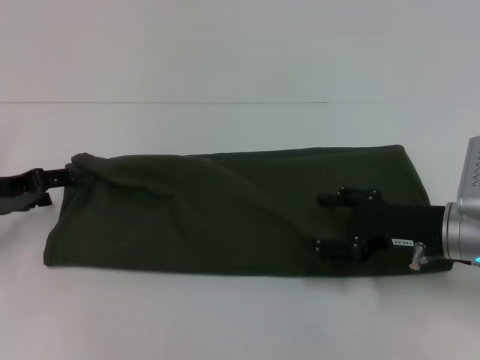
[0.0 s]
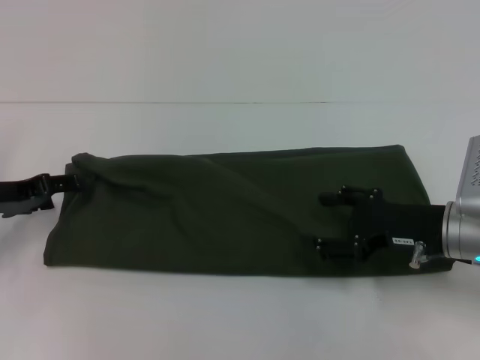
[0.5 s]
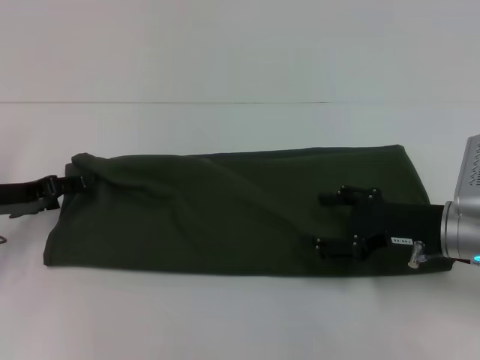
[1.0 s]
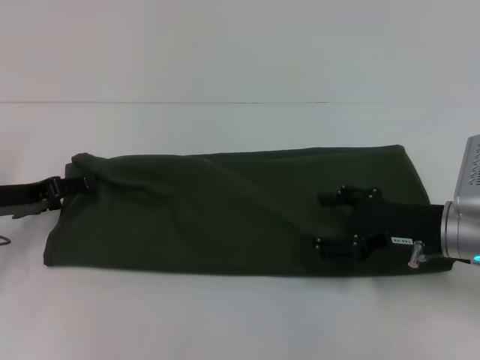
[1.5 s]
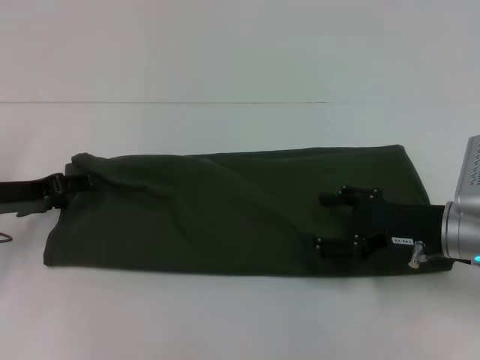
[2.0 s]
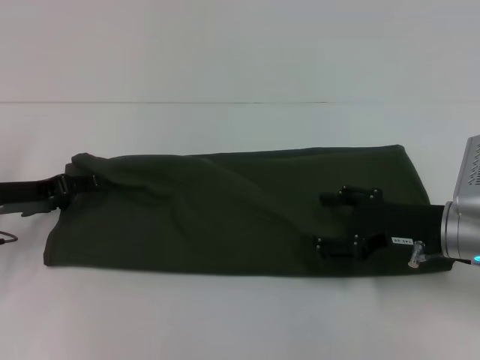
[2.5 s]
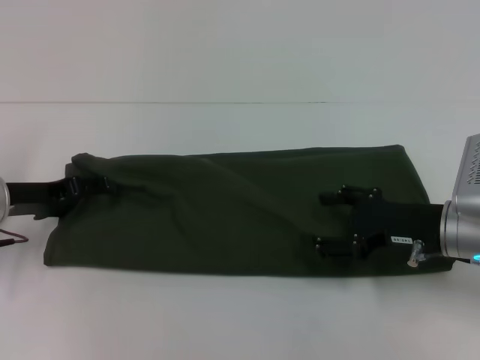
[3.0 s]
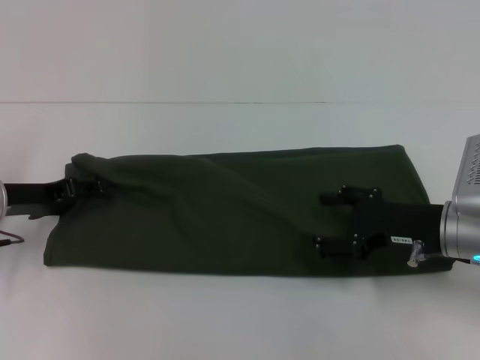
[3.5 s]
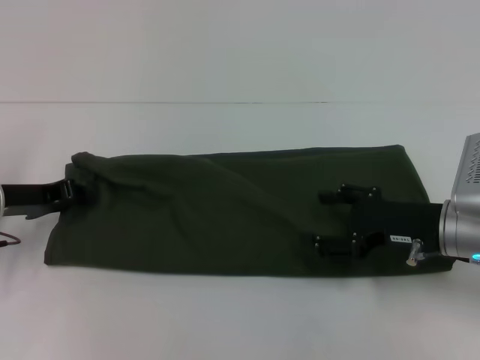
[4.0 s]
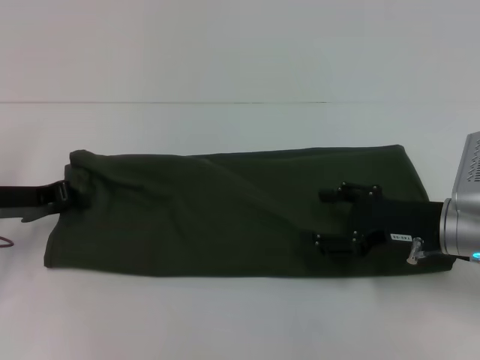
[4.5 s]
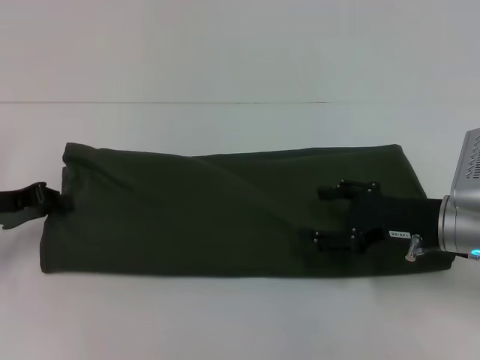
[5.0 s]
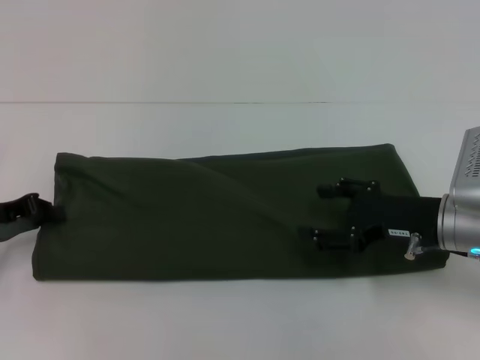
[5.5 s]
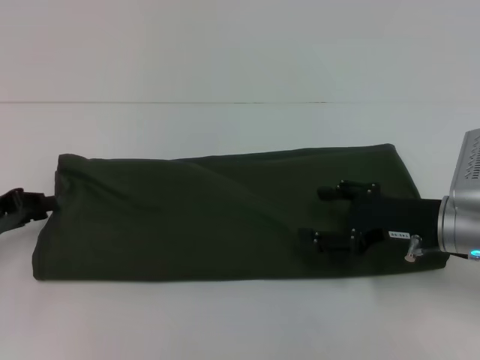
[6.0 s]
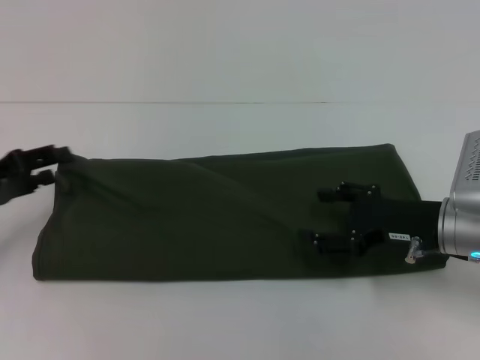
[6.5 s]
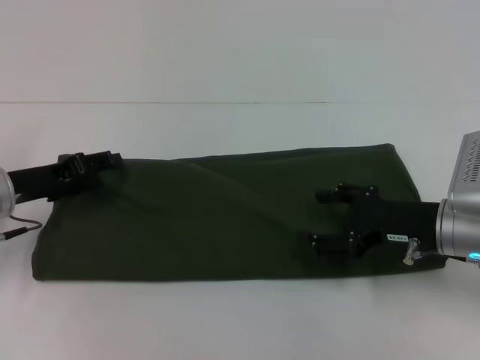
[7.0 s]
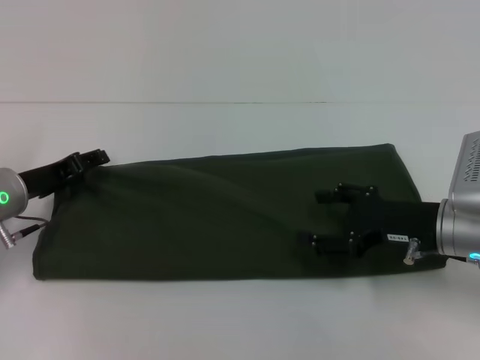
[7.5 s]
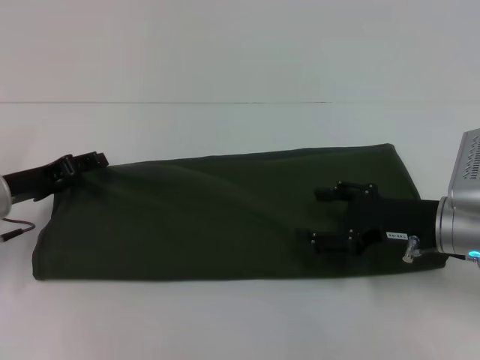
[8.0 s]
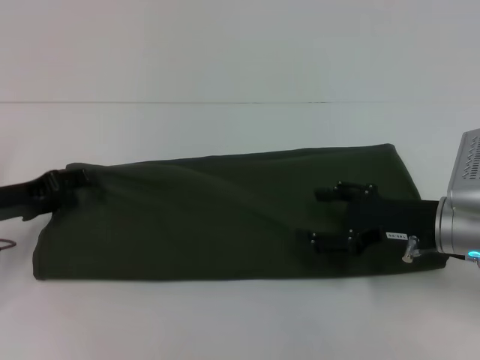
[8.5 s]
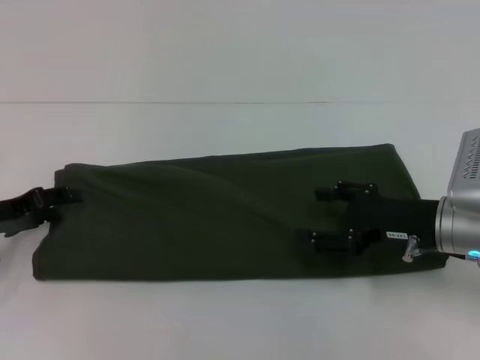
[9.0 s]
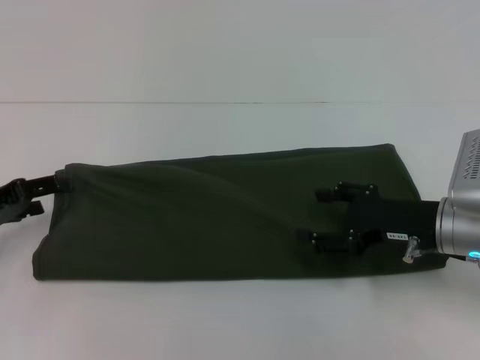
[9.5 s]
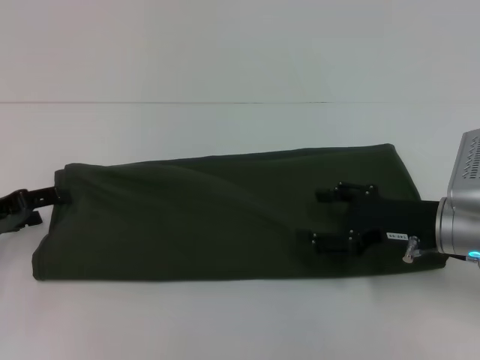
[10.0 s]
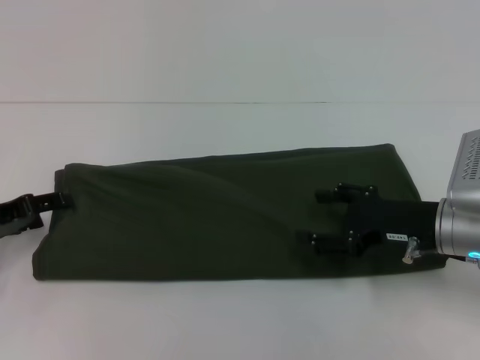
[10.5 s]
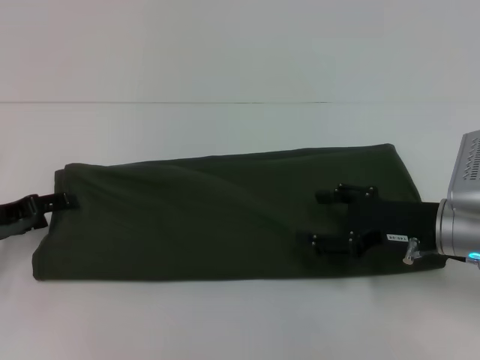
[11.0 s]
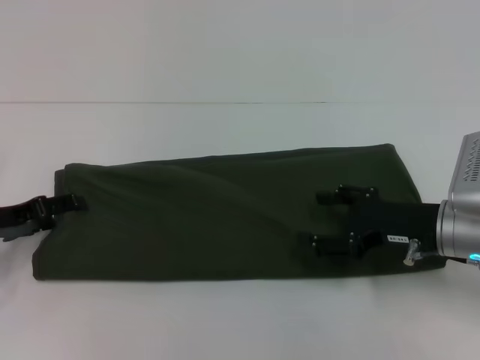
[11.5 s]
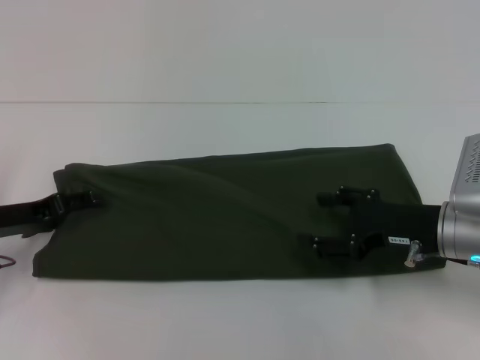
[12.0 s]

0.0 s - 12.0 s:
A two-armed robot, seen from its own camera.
0.0 s - 2.0 s: The grippers make only small movements.
2.0 s - 4.0 s: The left gripper closes up.
4.0 s - 6.0 s: The left gripper shifts by roughly 5 cm.
6.0 s - 8.0 s: The left gripper is displaced to the right by roughly 5 cm, and opens up.
8.0 s - 10.0 s: The left gripper moves to the left, roughly 5 cm.
10.0 s - 12.0 s: The grippers stay close to where they were, moving slightly.

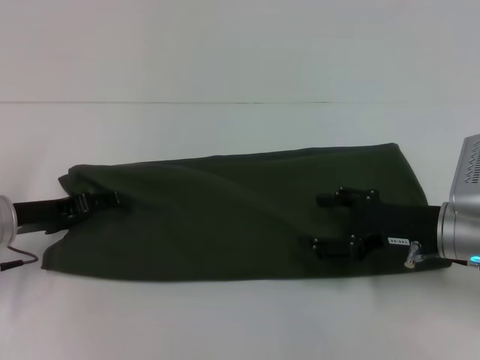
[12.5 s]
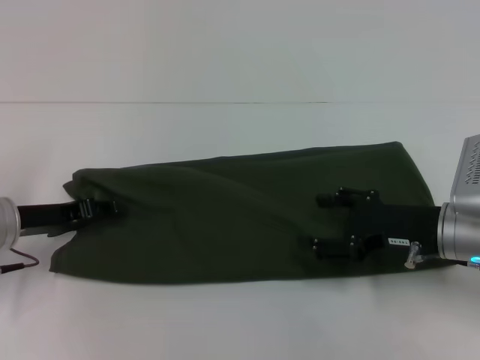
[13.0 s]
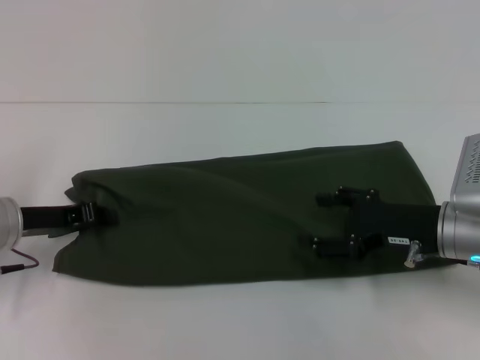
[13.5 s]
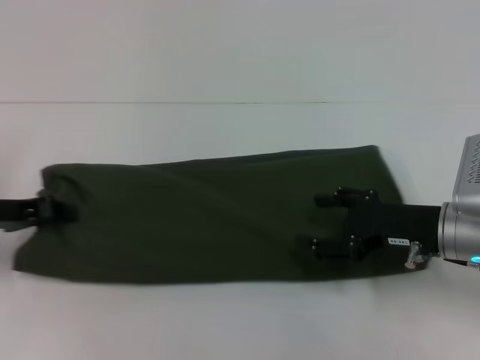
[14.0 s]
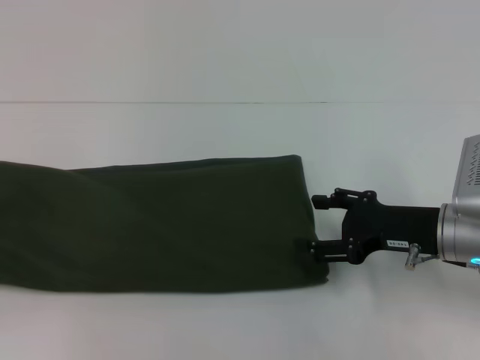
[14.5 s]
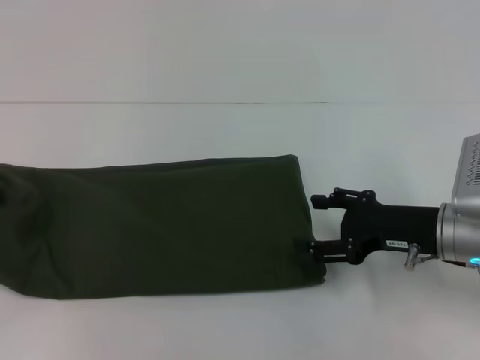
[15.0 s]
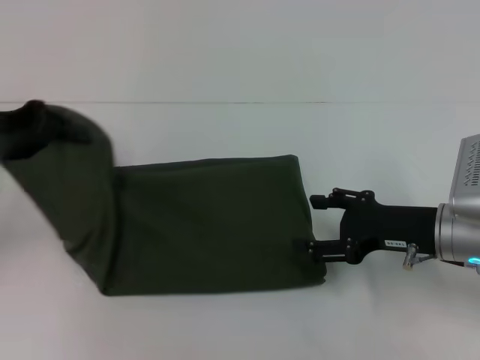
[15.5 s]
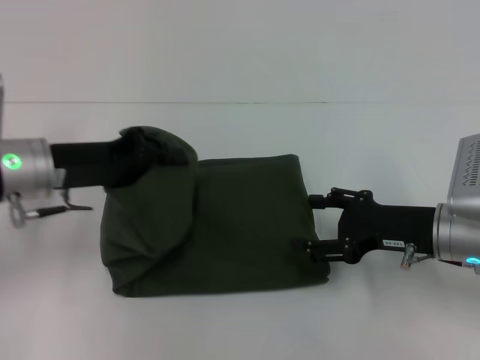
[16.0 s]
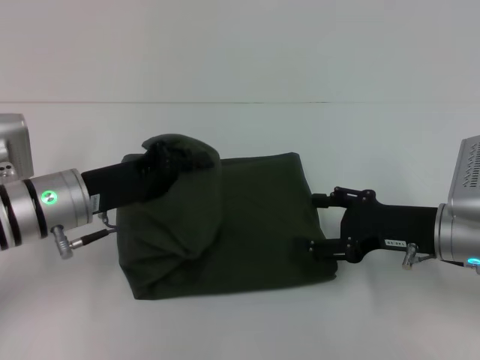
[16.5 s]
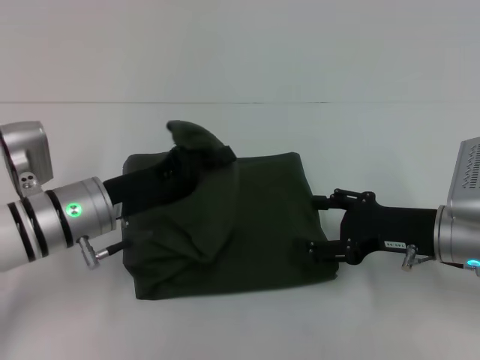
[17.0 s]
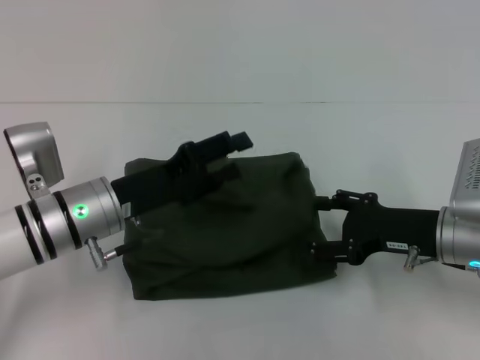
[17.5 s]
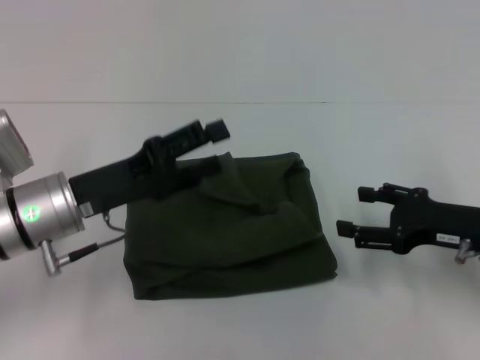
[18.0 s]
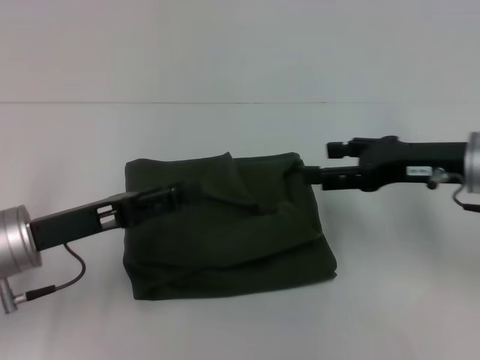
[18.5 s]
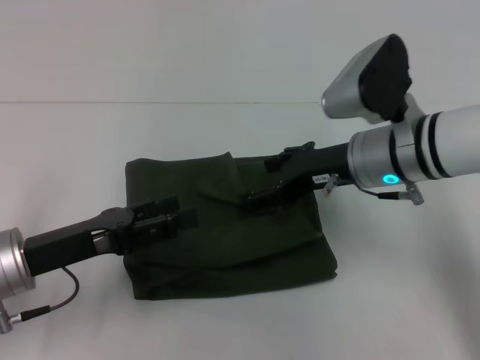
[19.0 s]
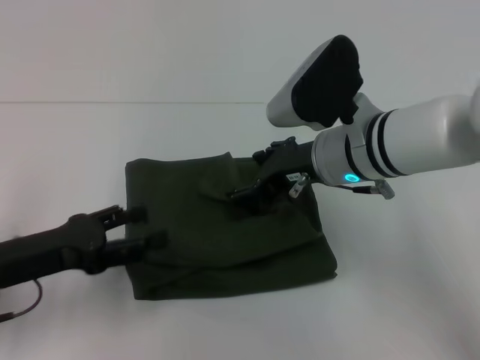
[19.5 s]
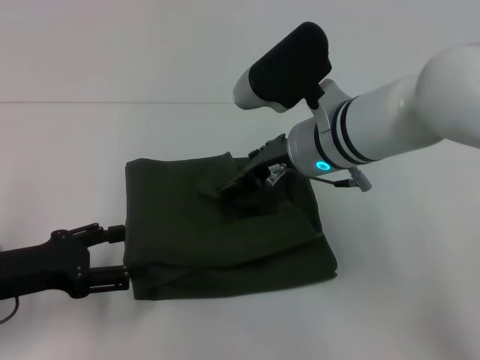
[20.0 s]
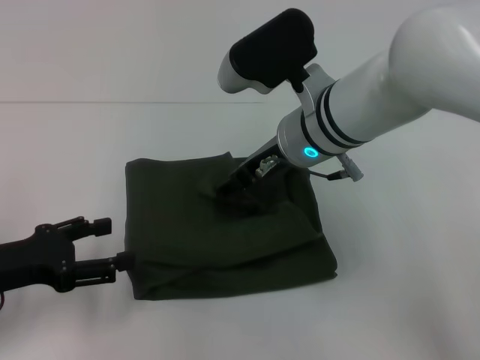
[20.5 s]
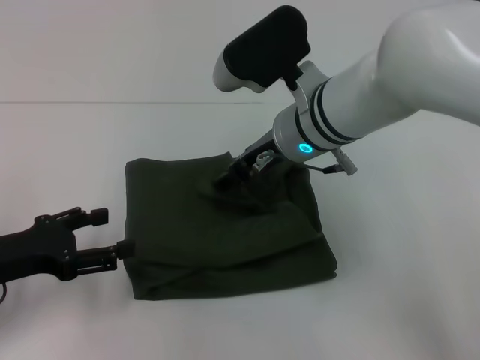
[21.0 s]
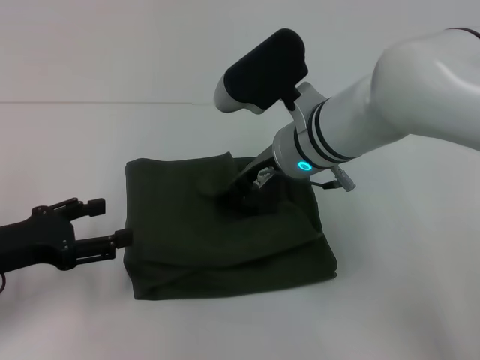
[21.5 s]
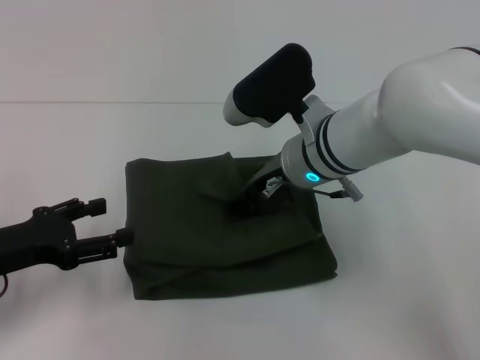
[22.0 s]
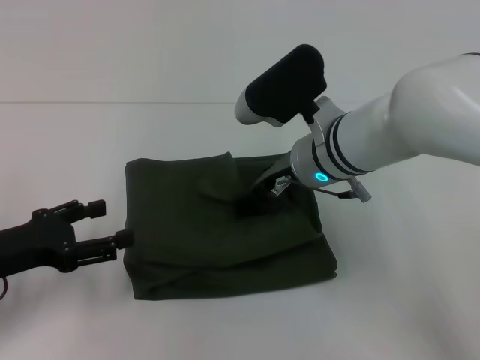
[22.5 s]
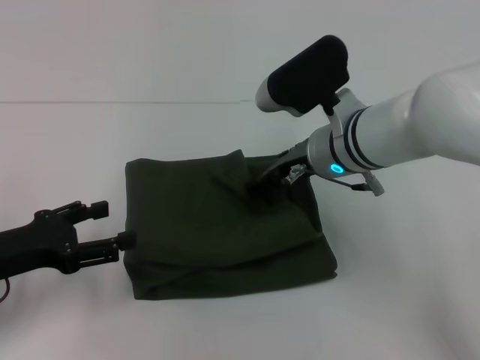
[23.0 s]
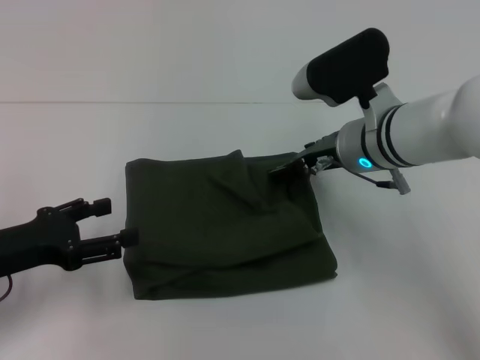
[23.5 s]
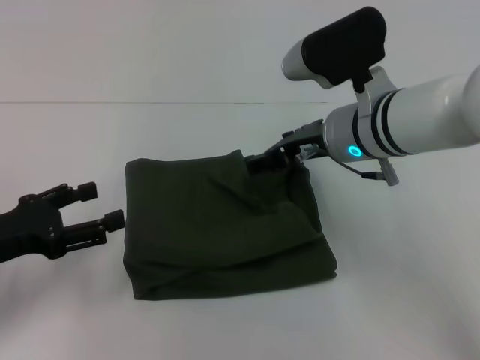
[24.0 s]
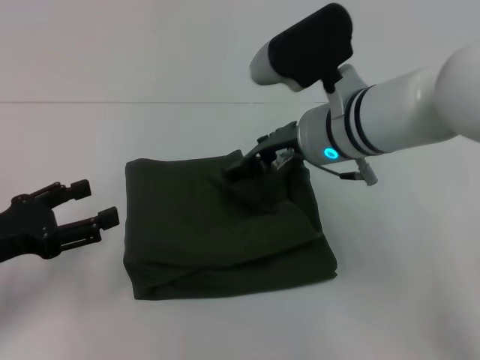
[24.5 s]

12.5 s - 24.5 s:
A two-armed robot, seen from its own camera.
Step, 12.5 s - 18.0 s: Fold the clothes with your left hand.
12.5 s - 14.5 s: The left gripper heads to the left and upward, covering approximately 15 cm, and closes its fingers.
14.5 s - 16.5 s: The left gripper goes roughly 20 cm to the right.
16.5 s - 18.5 s: The left gripper travels backward by some 5 cm, and opens its fingers. Meanwhile the right gripper is displaced upward by about 10 cm.
18.5 s - 20.5 s: The right gripper travels to the left by some 20 cm; the left gripper is displaced to the left by approximately 5 cm.
20.5 s - 22.5 s: The grippers stay close to where they were, moving slightly.
22.5 s - 24.5 s: The grippers stay close to where they were, moving slightly.

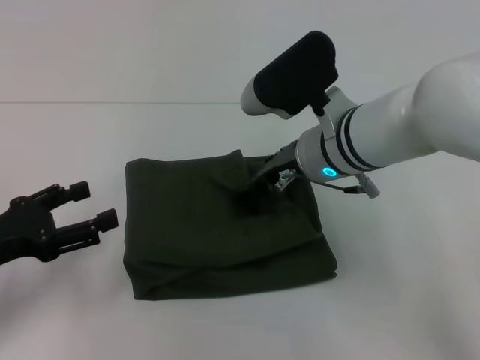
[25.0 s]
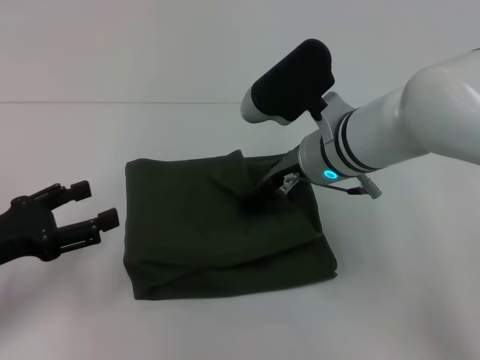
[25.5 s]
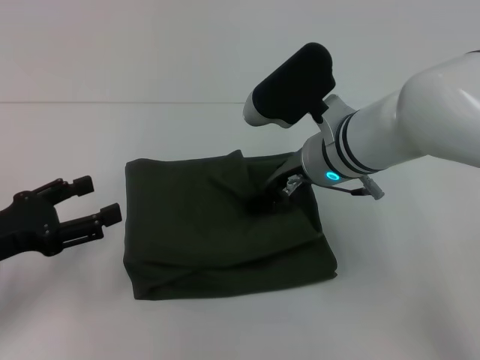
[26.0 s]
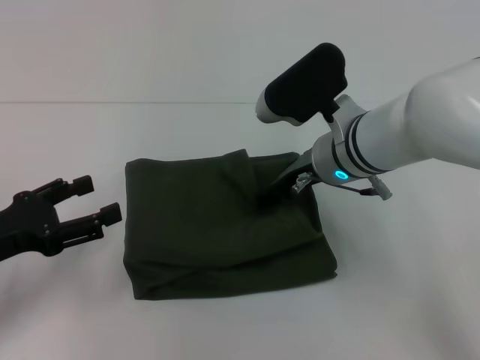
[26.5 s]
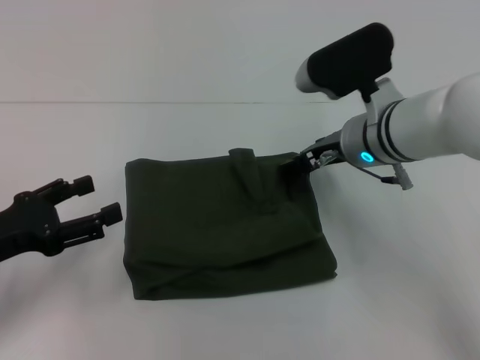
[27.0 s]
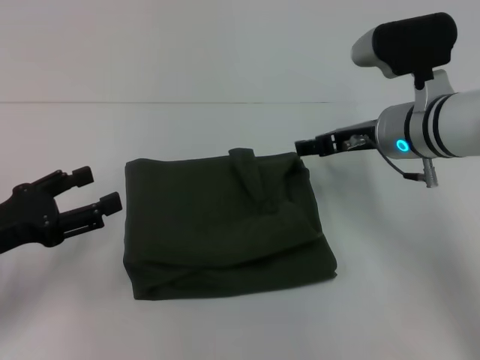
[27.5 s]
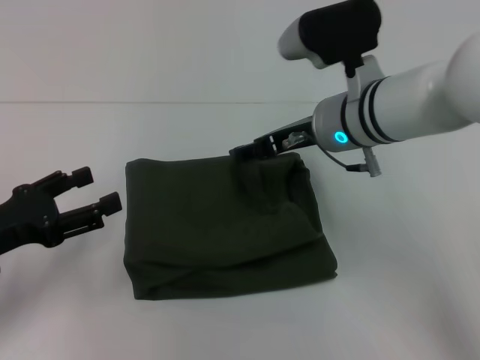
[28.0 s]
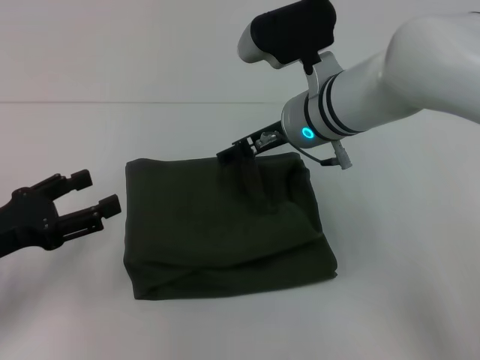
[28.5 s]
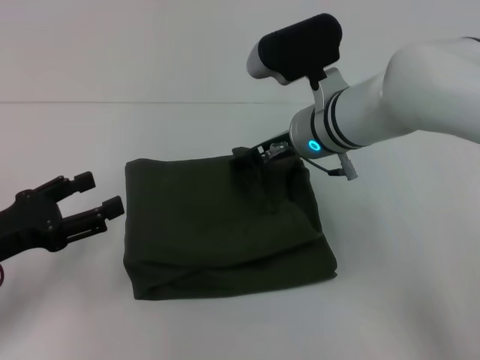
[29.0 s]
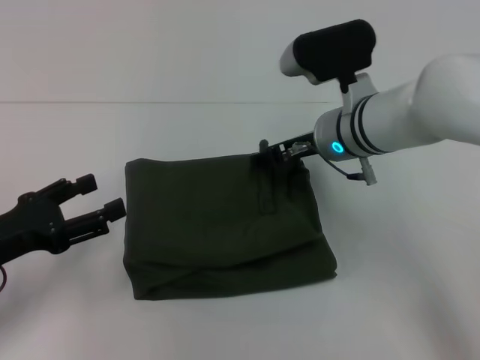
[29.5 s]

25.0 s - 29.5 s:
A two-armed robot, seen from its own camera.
25.0 s - 27.0 s: The grippers make only small movements.
27.0 s - 29.5 s: The right gripper reaches approximately 5 cm to the left, then returns.
